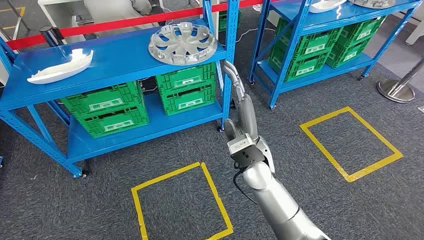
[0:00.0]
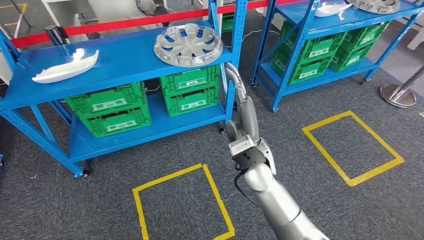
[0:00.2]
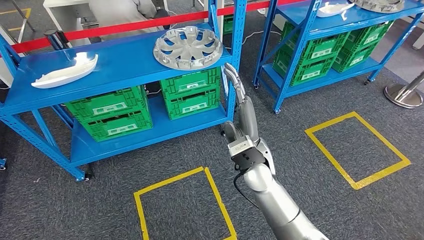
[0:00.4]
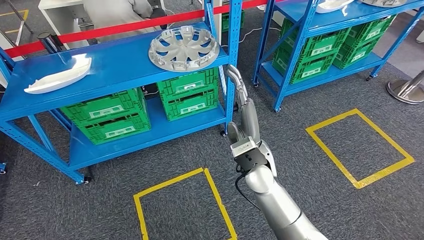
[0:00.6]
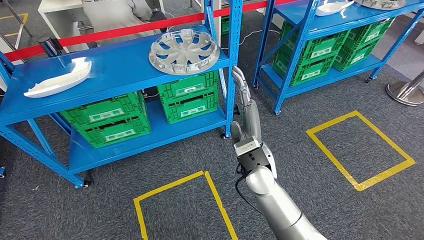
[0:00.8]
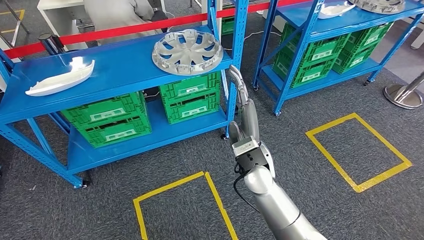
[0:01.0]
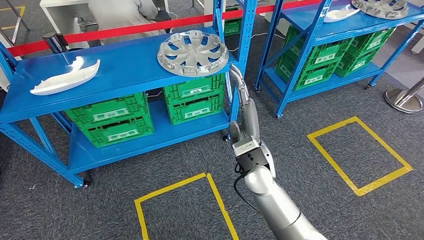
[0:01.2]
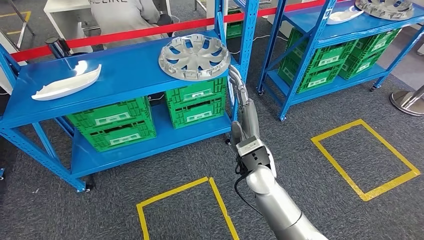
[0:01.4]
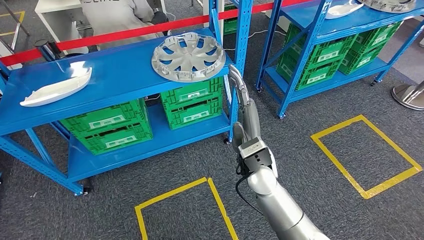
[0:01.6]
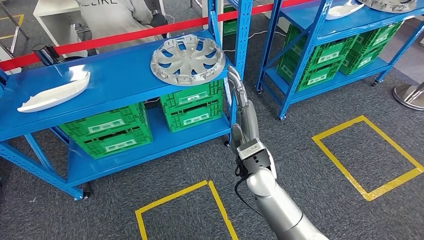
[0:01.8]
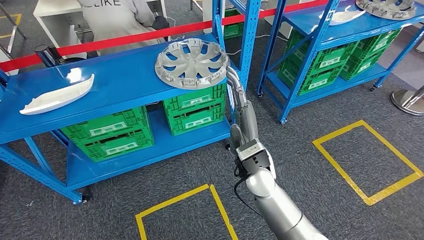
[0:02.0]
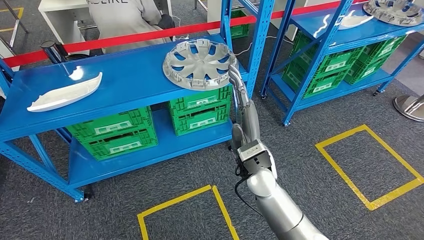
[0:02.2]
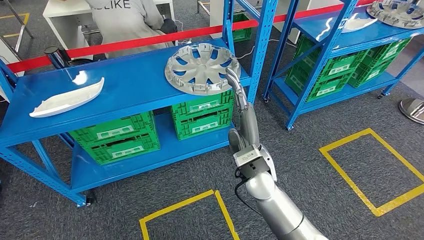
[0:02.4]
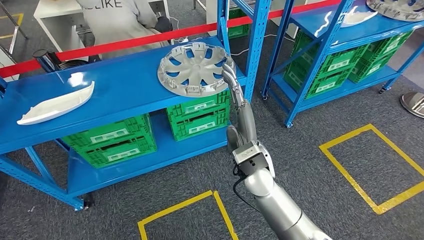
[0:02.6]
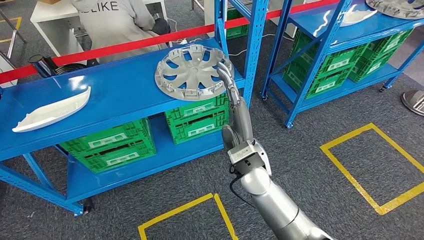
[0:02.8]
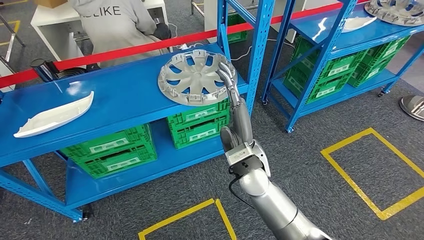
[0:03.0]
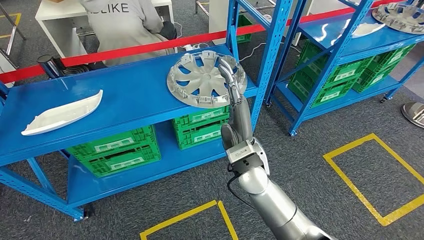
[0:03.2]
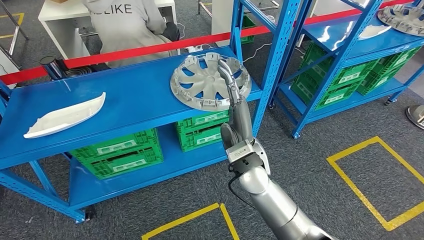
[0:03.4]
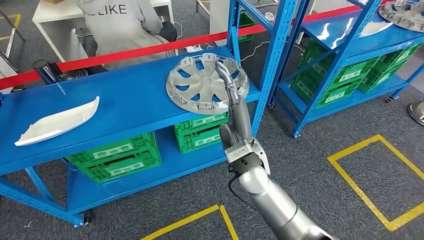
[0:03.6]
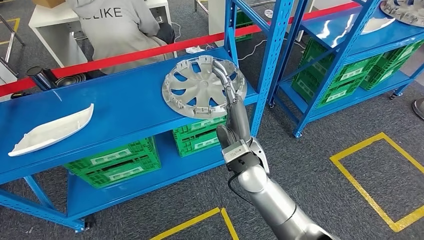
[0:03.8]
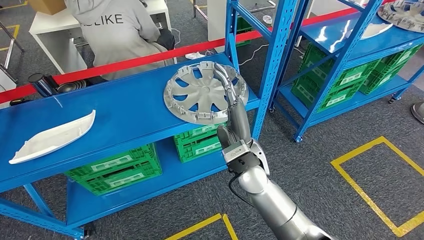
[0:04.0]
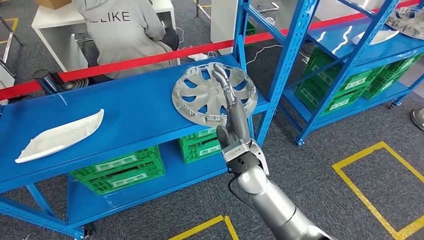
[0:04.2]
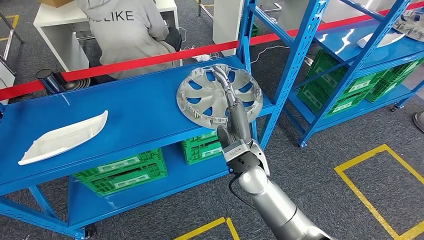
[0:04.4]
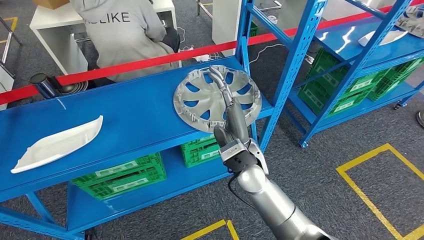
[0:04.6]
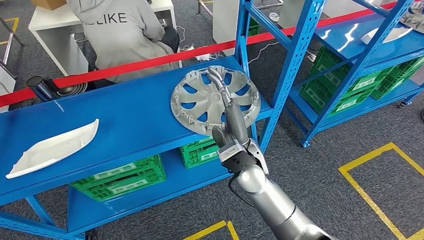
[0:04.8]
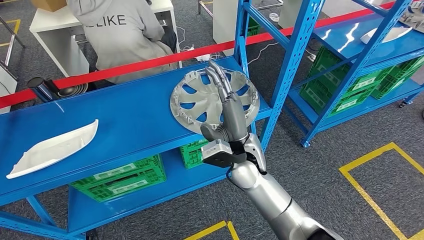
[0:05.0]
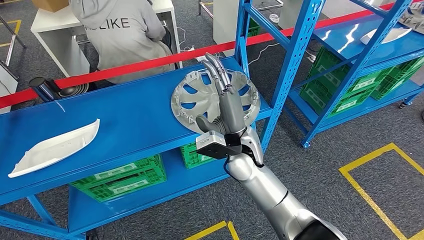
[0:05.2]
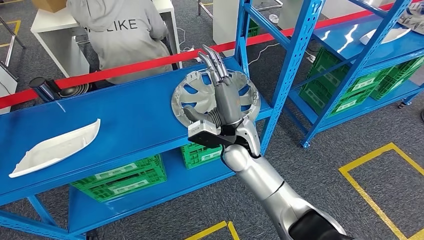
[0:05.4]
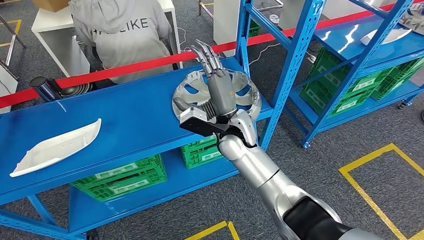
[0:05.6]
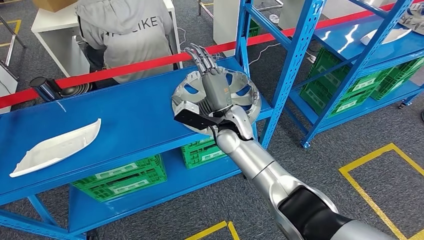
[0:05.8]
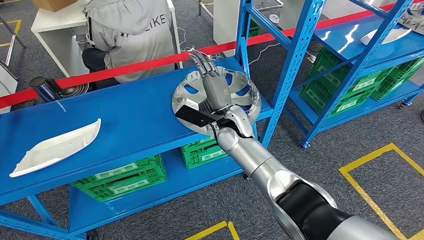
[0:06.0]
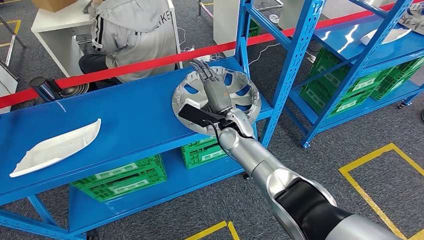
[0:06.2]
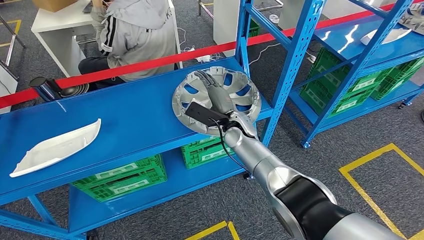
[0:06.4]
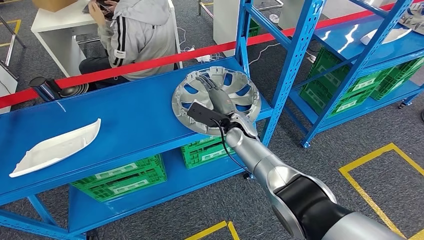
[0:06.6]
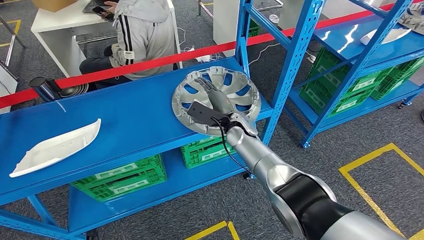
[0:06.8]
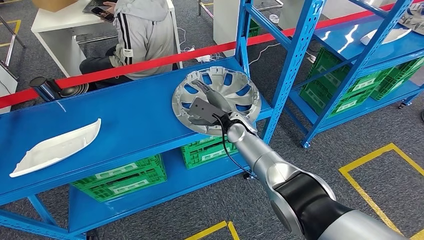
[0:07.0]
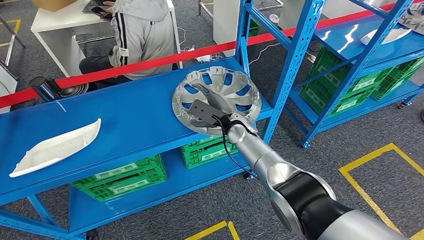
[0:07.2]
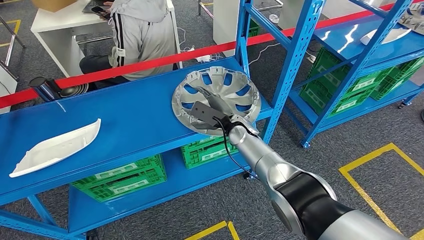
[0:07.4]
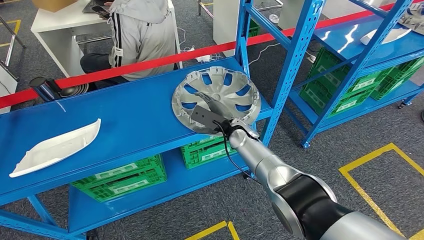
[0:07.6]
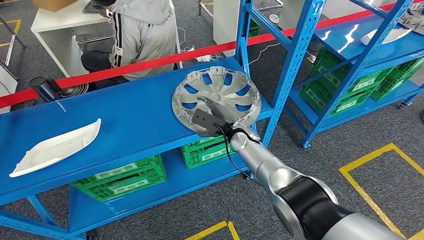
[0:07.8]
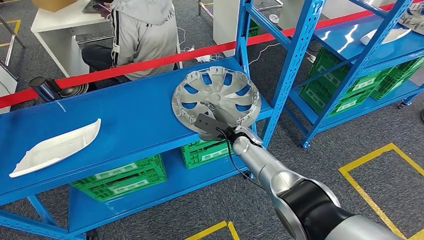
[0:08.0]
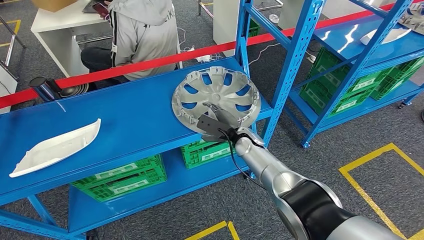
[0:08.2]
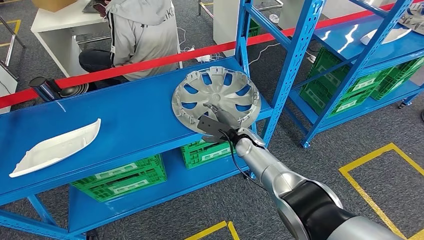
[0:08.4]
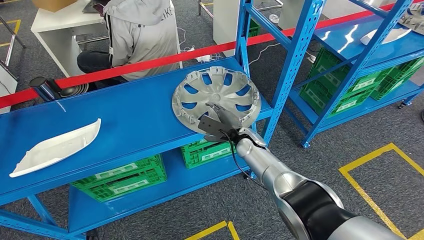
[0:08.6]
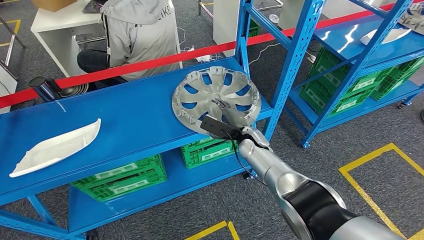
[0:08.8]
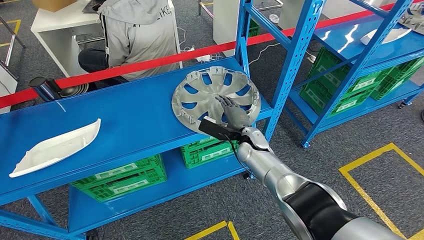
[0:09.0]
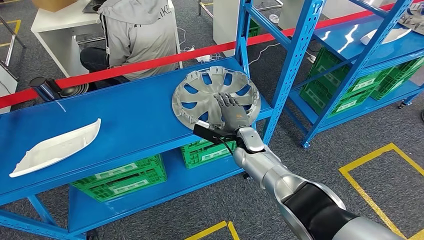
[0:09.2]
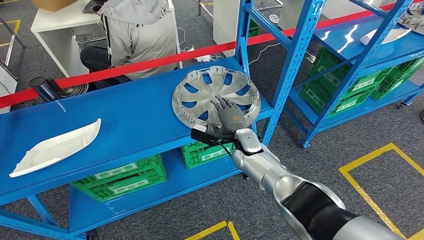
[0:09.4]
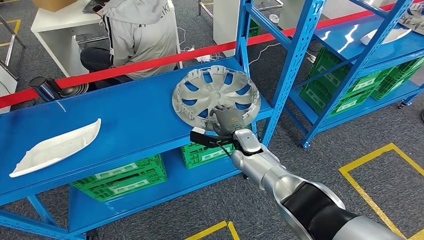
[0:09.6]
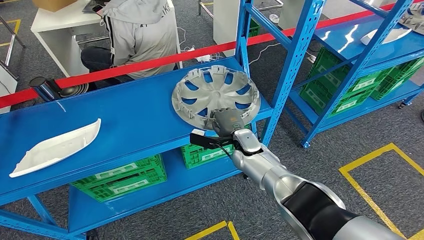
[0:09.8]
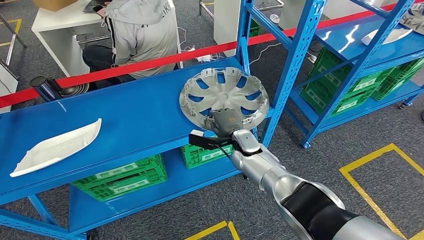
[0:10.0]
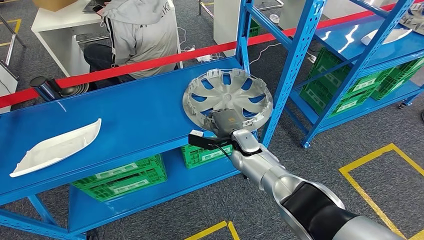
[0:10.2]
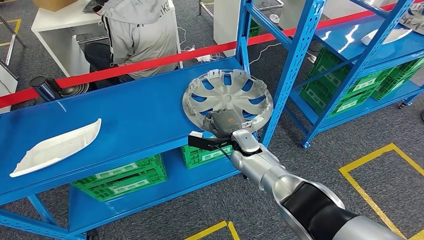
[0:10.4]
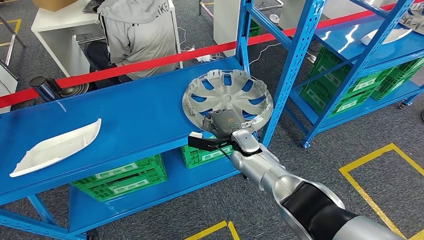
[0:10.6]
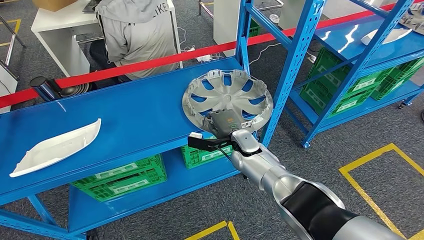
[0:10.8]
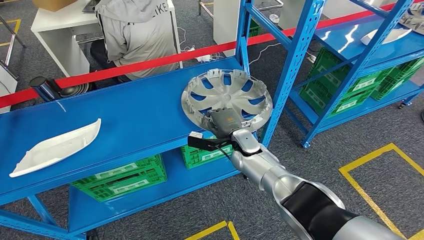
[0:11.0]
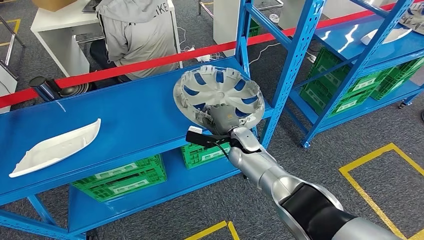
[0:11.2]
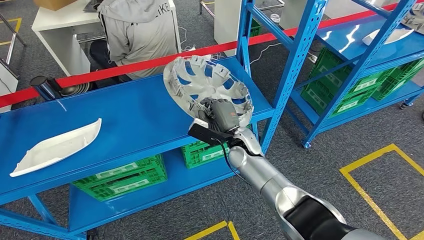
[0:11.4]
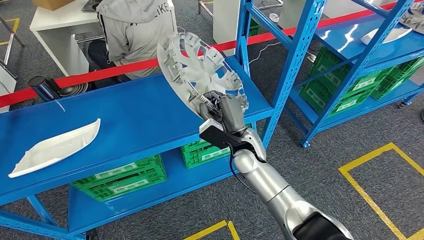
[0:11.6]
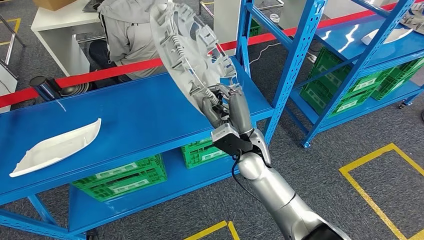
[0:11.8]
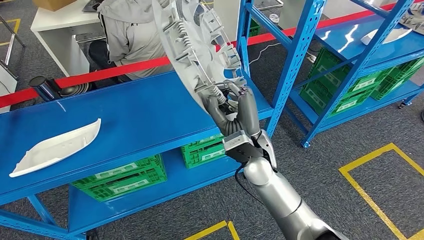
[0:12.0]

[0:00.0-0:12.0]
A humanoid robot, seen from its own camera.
0:06.0 to 0:07.6: The right hand moves downward, approximately 5 cm.
0:10.4 to 0:12.0: The right hand is displaced upward by approximately 10 cm.

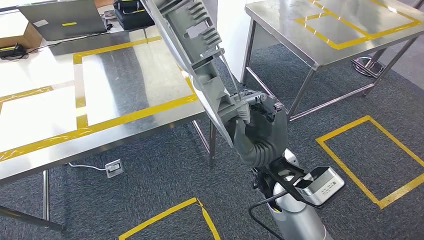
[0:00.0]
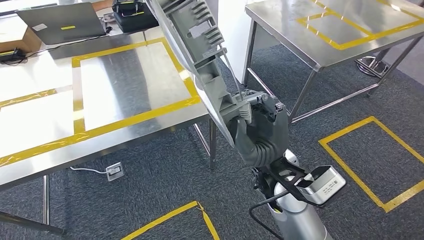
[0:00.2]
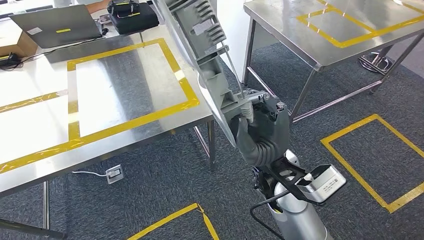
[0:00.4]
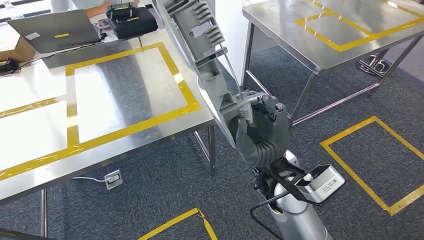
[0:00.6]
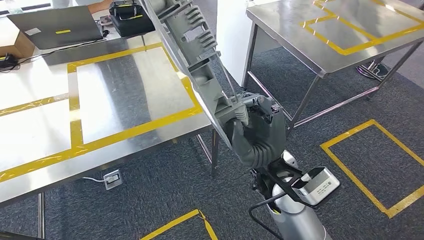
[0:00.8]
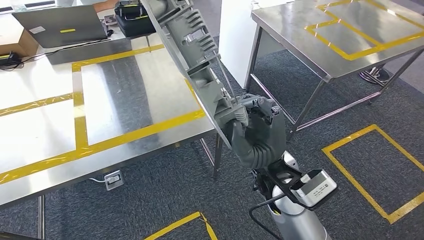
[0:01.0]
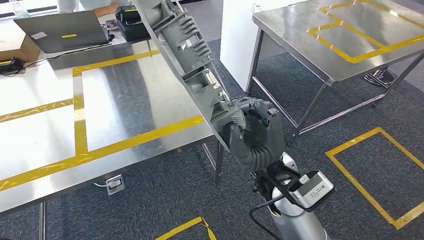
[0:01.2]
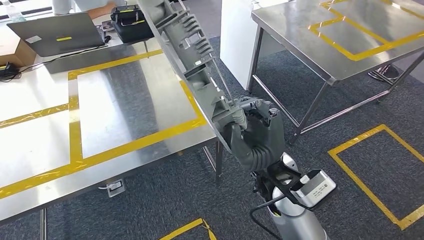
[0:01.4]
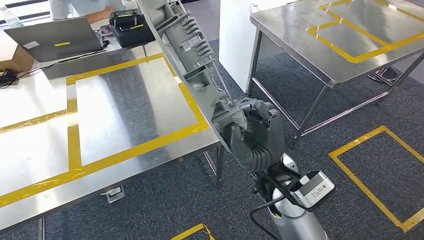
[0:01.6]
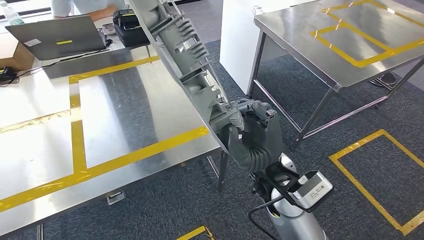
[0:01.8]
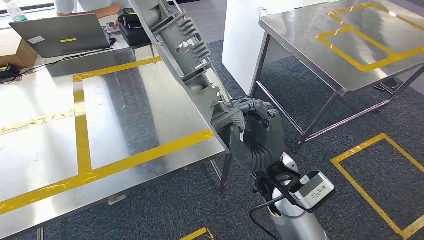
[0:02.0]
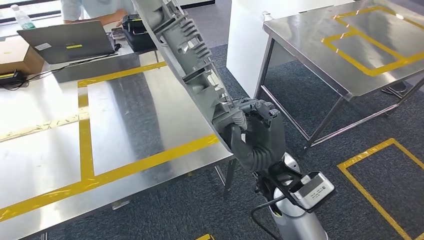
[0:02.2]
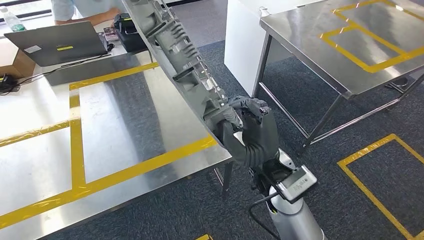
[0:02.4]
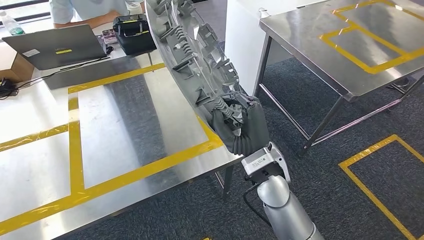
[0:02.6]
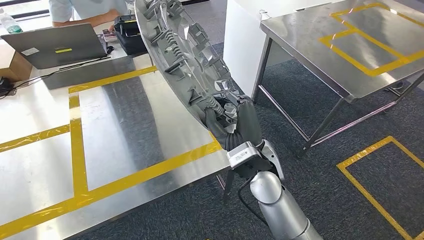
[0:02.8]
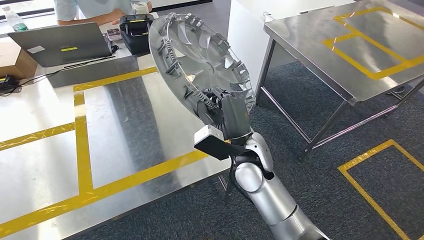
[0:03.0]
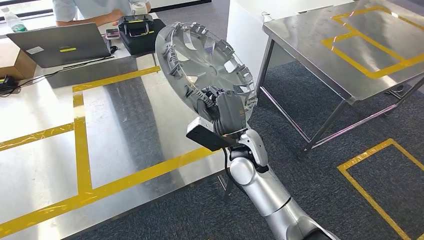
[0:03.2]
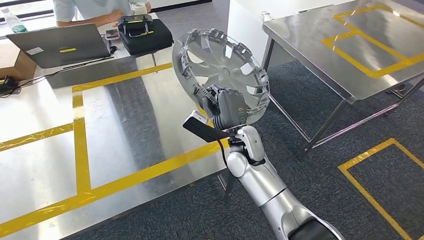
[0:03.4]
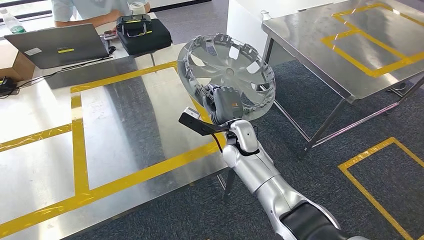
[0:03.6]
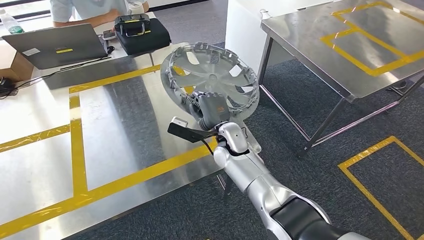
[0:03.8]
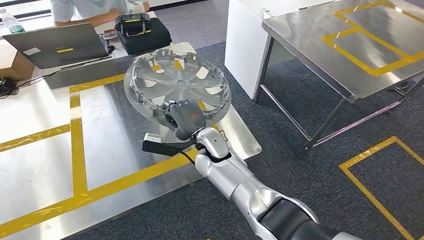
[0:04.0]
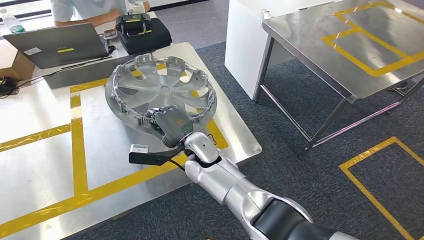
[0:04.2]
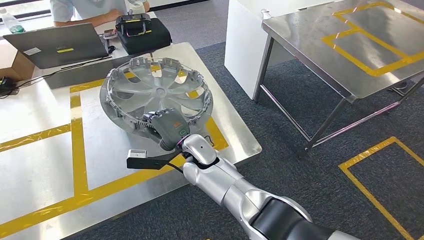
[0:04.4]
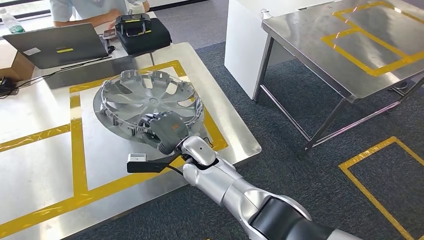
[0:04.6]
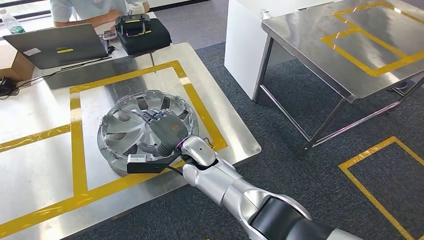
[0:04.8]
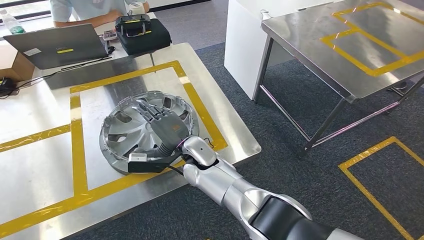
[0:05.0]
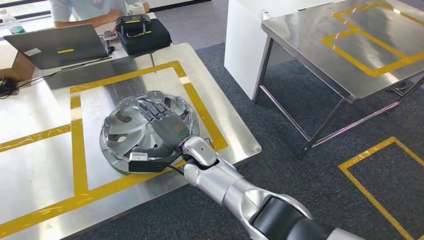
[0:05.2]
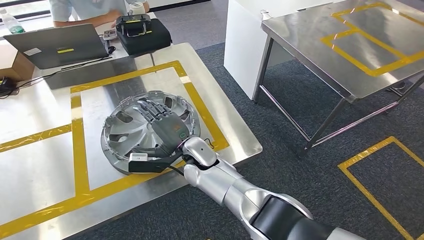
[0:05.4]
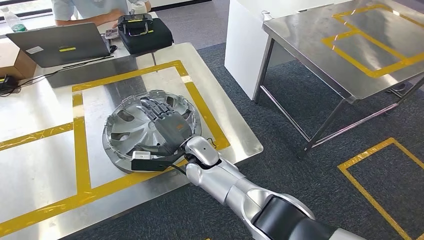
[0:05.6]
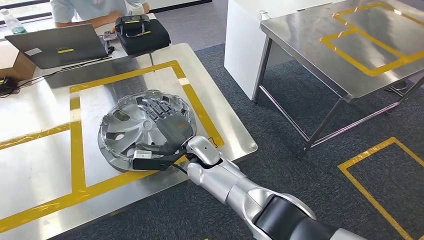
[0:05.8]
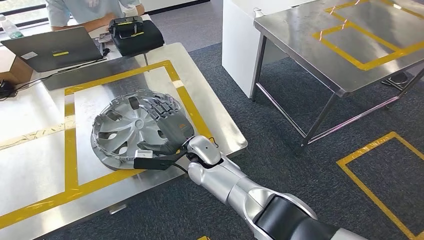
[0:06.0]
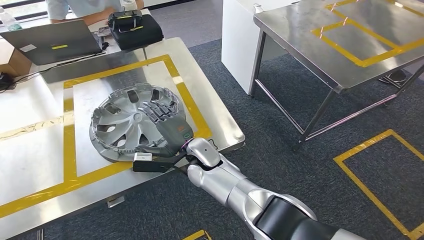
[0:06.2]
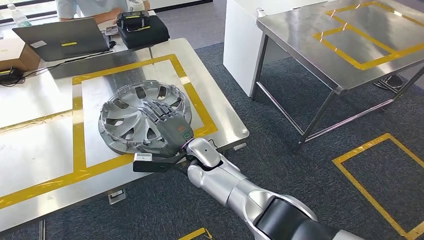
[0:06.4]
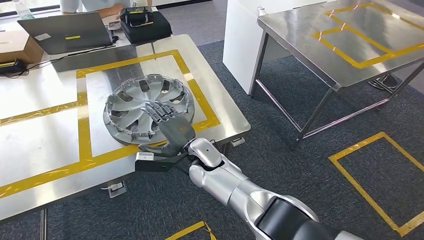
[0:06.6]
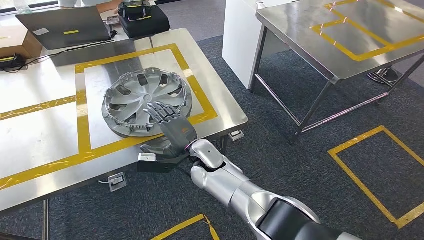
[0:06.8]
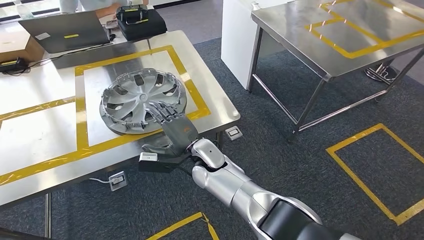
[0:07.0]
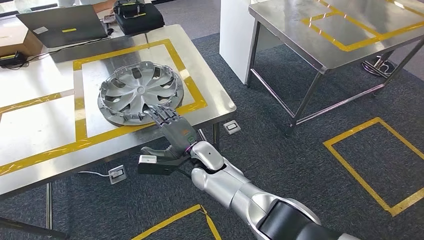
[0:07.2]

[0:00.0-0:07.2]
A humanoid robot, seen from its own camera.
0:04.4 to 0:05.8: There are only small adjustments of the hands.
